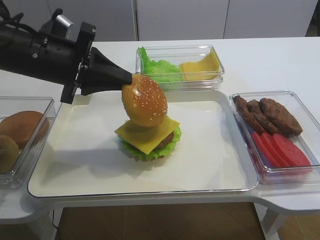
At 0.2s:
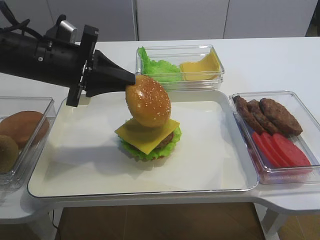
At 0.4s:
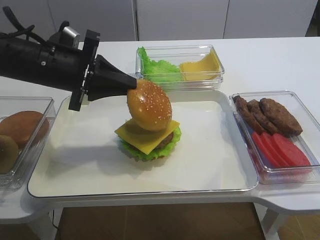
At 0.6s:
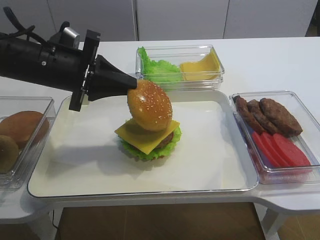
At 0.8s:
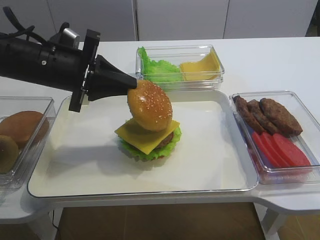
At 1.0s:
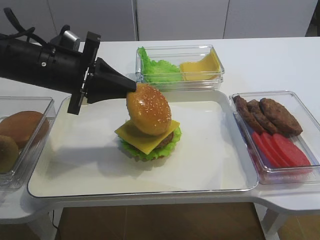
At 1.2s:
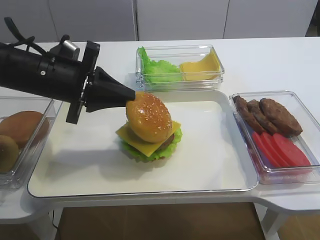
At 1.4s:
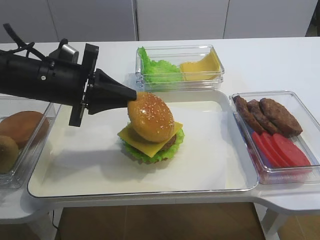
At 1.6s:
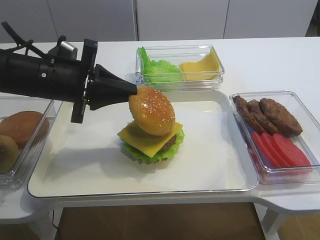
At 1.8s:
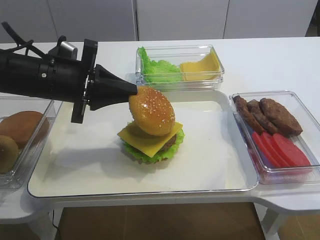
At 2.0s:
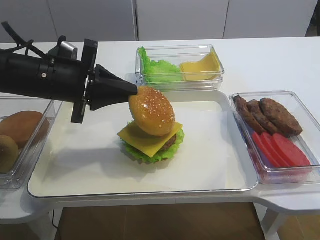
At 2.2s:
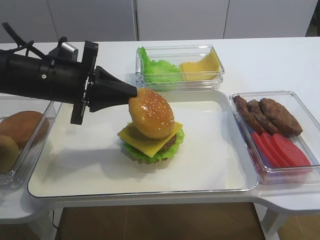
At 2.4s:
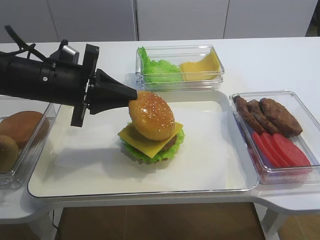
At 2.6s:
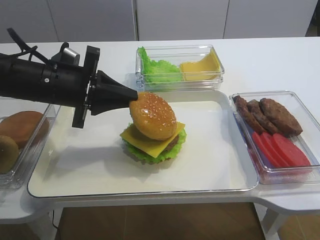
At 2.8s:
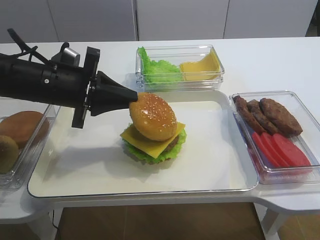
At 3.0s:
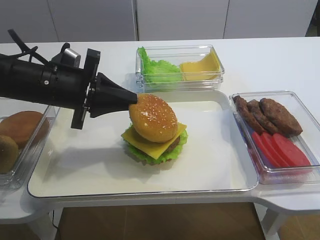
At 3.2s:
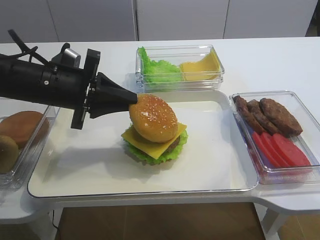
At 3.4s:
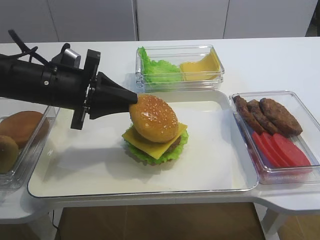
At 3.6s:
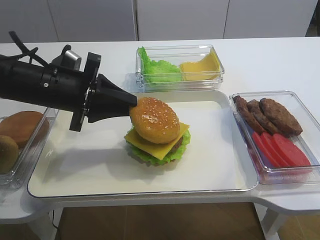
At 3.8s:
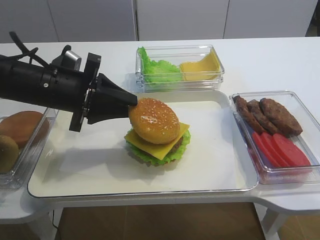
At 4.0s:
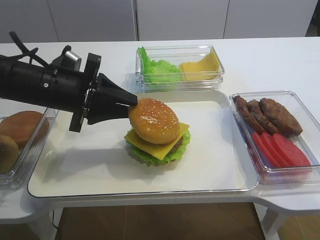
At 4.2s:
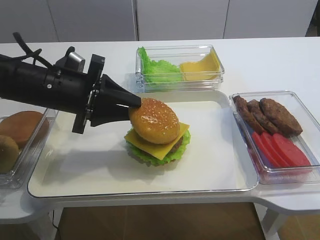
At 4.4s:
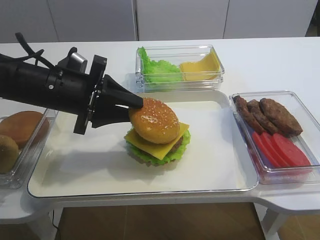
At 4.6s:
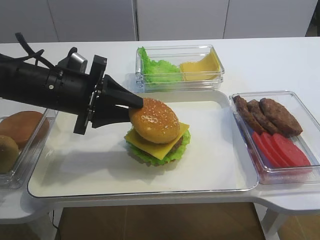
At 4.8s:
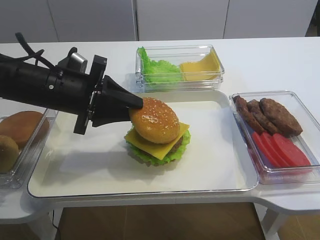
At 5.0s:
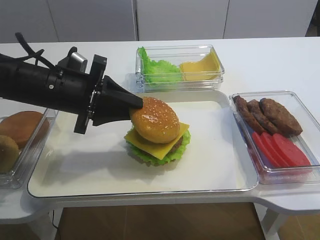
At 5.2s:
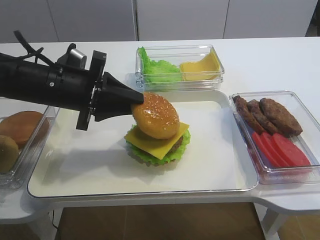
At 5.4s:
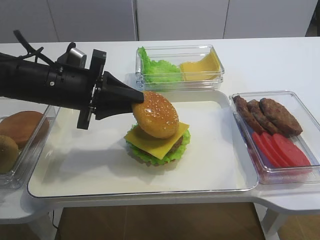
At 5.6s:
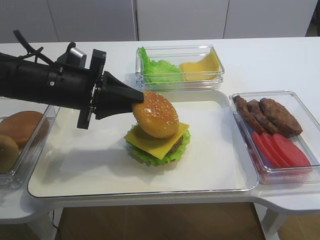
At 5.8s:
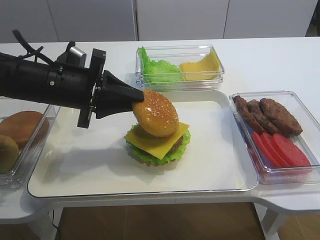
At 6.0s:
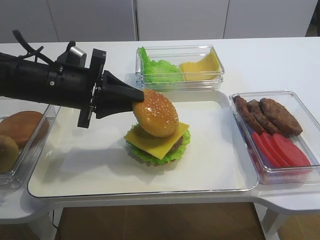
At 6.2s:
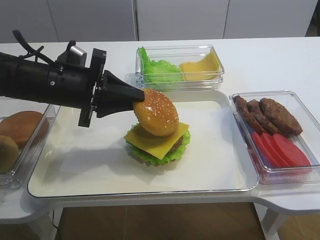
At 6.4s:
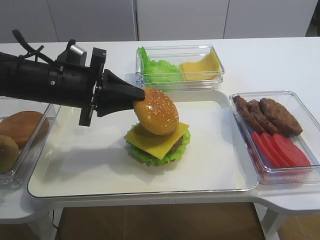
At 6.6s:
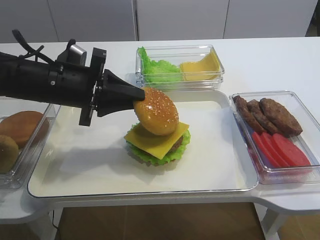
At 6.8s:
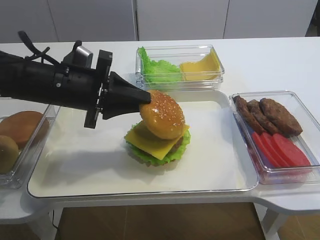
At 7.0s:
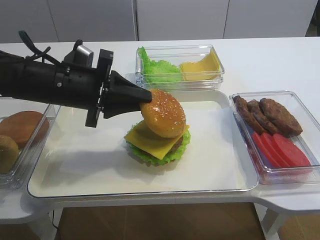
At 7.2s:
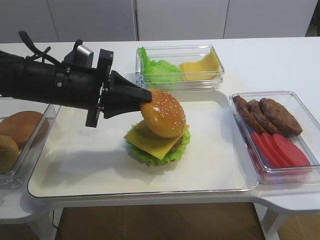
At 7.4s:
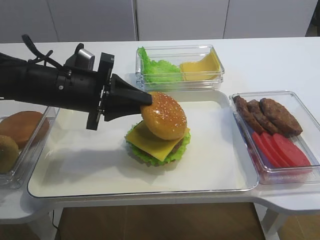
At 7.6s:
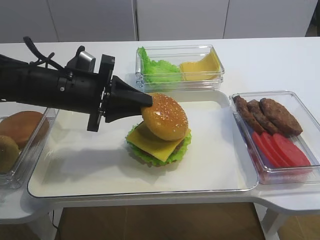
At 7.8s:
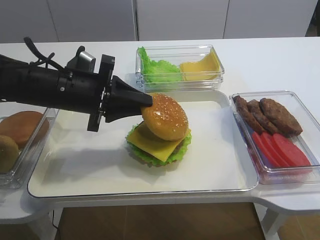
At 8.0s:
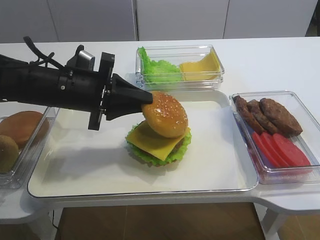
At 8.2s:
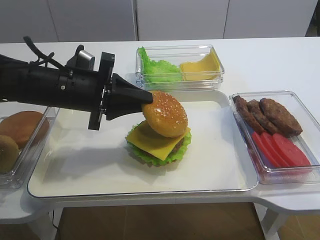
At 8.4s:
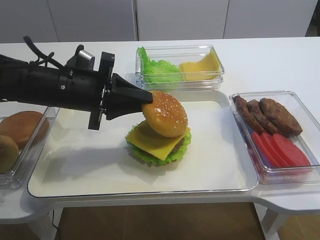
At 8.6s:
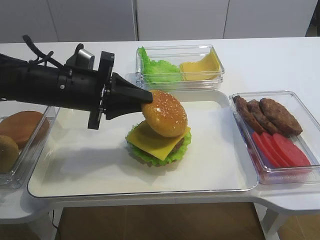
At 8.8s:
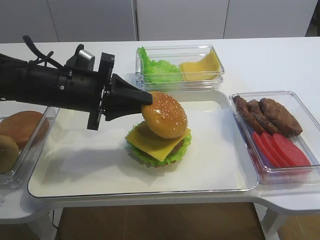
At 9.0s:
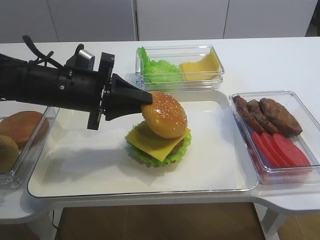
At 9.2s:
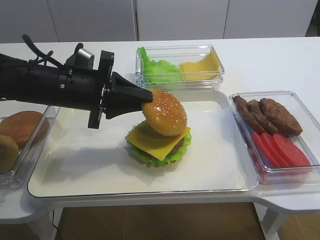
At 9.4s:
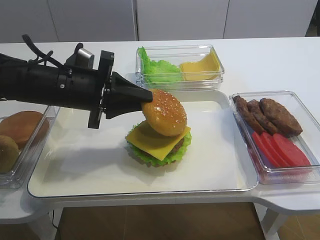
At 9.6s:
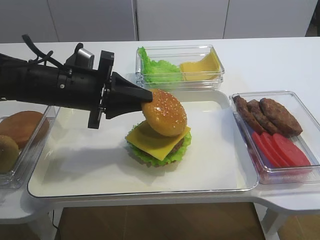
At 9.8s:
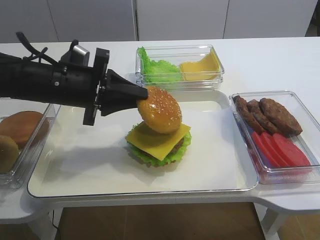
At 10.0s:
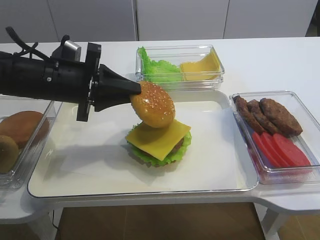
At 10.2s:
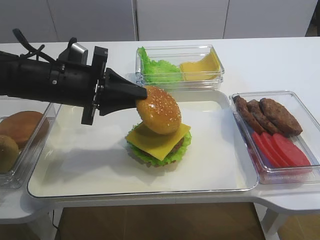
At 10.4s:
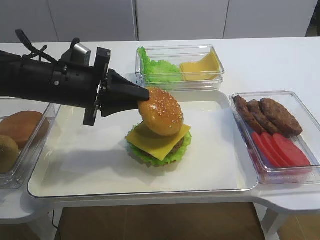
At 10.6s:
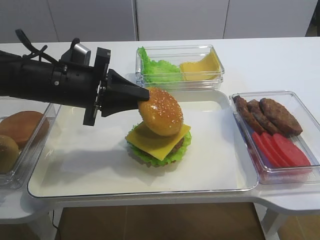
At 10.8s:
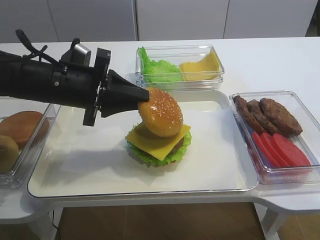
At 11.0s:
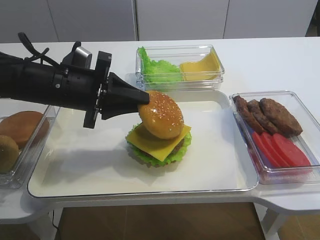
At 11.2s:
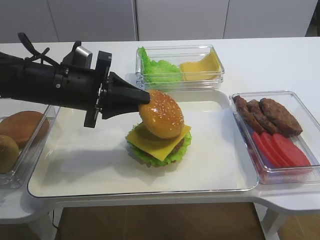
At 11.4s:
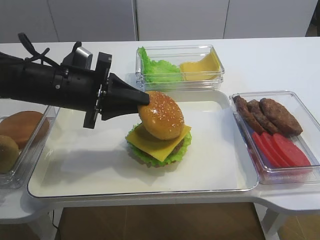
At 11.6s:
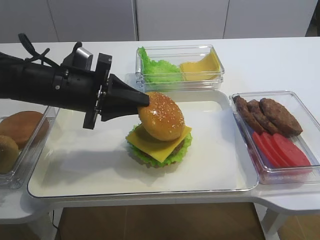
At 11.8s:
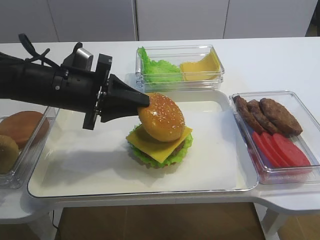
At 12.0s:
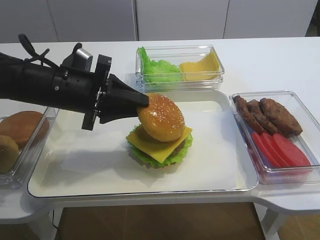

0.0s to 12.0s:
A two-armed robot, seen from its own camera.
0.0s to 1.6s: The grippers stay close to where they were, moving slightly.
1.6s to 3.0s: The two grippers keep their place.
3.0s to 4.4s: The left gripper opens its fingers.
4.4s to 6.0s: Both grippers stay put.
6.0s to 7.6s: The grippers move only a little.
7.6s to 9.0s: Both grippers stay put.
9.0s to 10.4s: There are only small adjustments of the grippers.
10.4s to 12.0s: Both grippers stay about where they are.

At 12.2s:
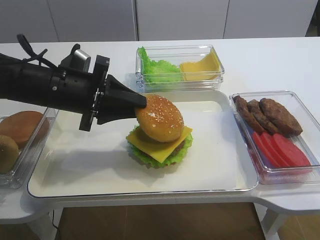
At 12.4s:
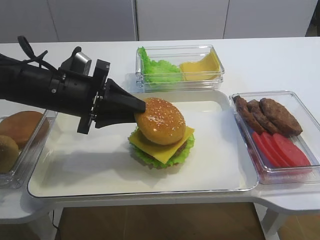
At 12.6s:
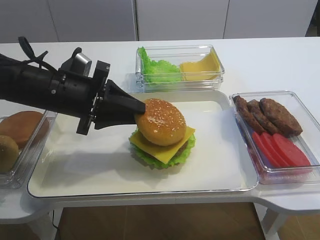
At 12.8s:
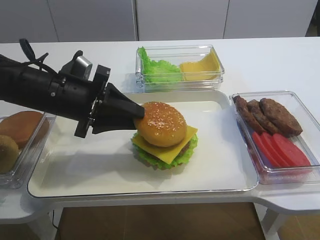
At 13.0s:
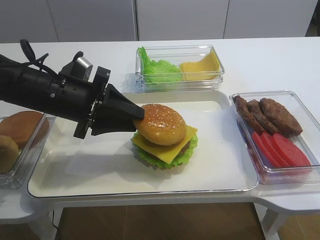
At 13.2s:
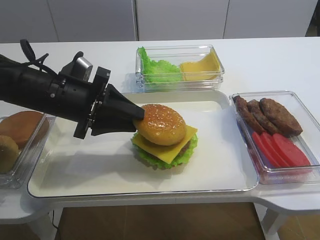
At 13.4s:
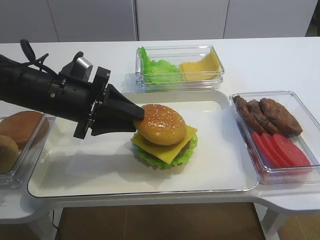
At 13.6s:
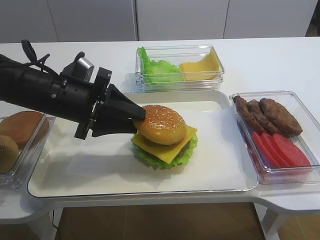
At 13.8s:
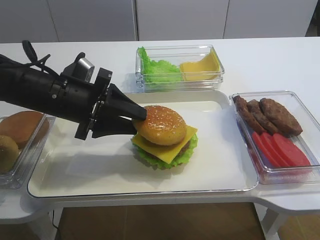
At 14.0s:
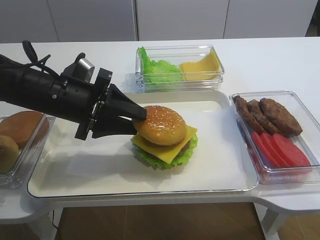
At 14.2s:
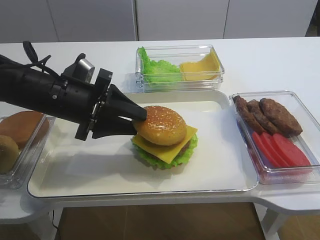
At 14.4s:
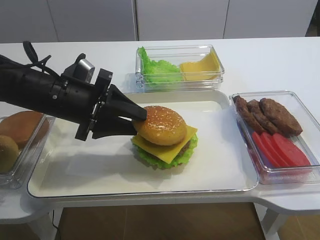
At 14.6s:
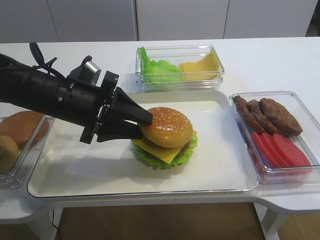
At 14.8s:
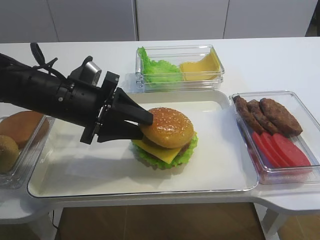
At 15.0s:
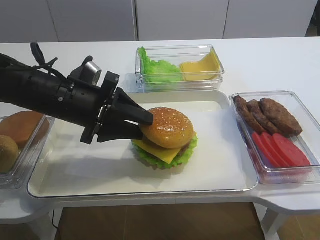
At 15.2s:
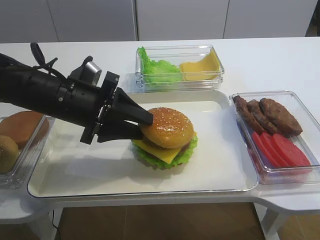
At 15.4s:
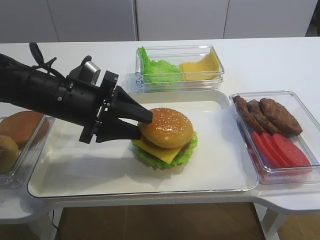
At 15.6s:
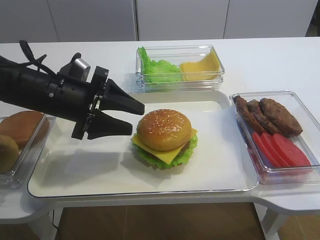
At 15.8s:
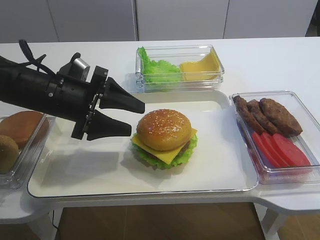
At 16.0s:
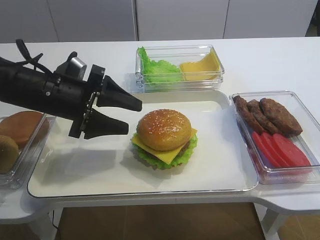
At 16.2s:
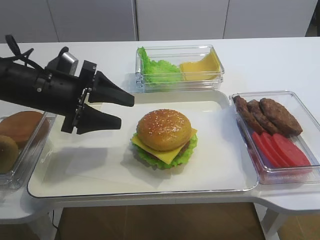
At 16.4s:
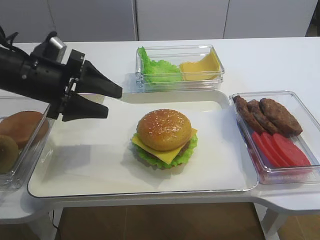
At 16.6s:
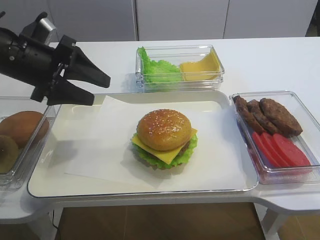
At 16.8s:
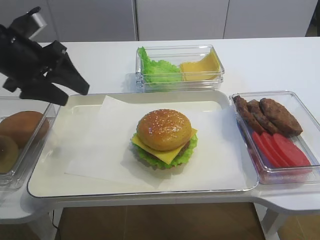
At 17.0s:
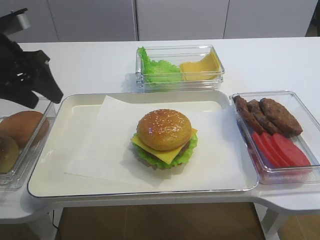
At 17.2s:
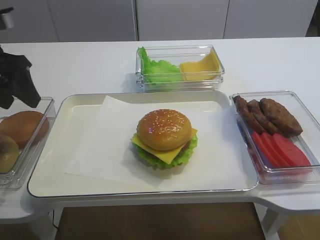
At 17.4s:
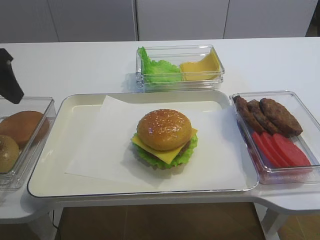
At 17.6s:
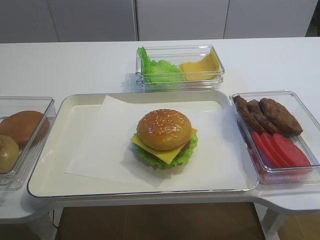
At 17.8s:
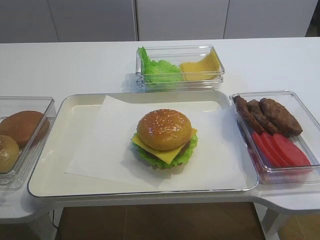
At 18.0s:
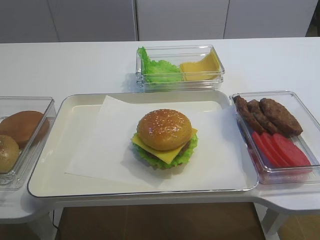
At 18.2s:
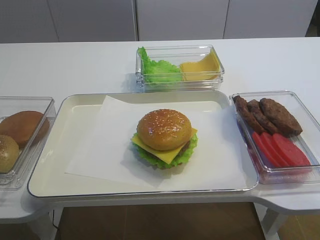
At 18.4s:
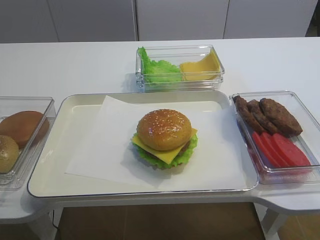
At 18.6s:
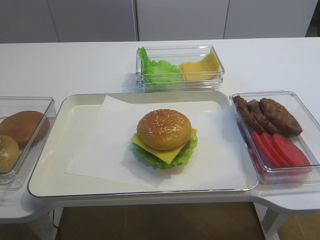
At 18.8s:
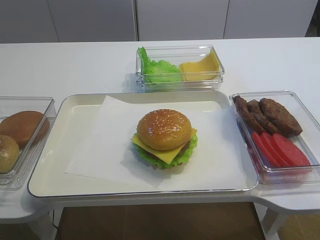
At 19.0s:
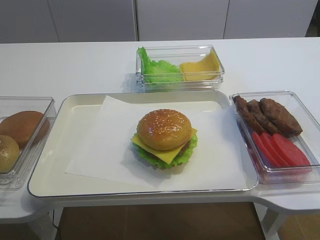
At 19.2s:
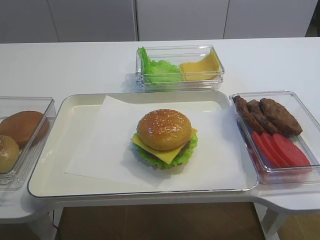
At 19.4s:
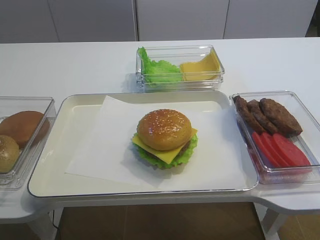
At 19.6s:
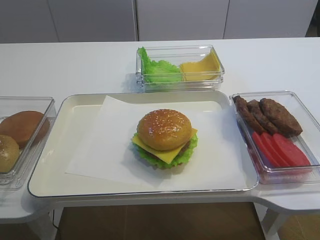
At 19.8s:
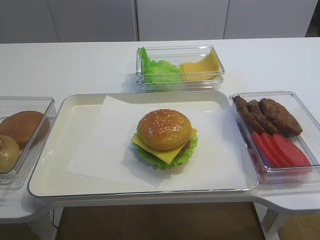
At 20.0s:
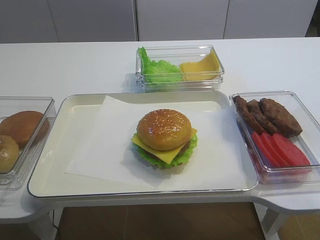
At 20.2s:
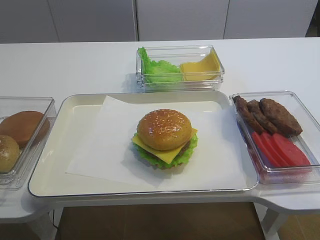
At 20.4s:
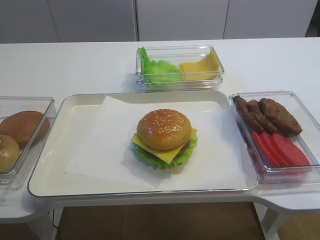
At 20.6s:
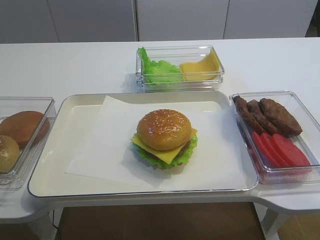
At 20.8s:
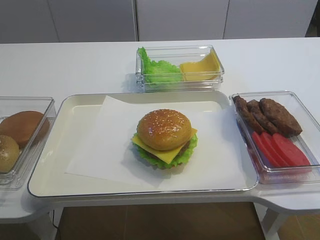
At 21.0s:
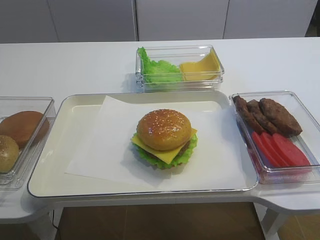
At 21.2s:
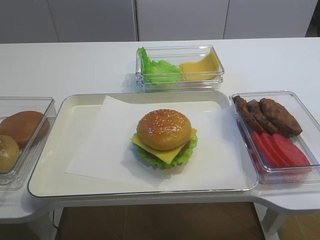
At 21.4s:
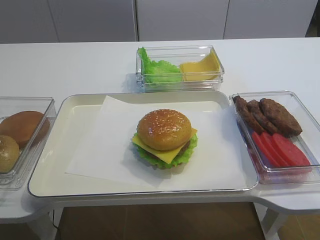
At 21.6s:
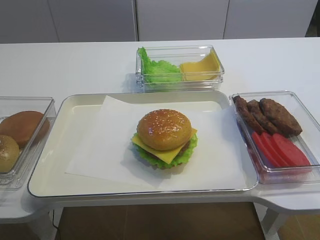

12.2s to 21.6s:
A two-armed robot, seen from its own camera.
Step, 12.2s to 16.0s: Place the hamburger lid on the cheese slice with the left gripper.
12.2s to 13.8s: The grippers move only a little.
13.8s to 15.4s: The two grippers keep their place.
15.4s to 17.0s: The left gripper is displaced to the left and upward by about 15 cm.
17.0s to 18.4s: The left gripper heads backward and upward, covering about 20 cm.

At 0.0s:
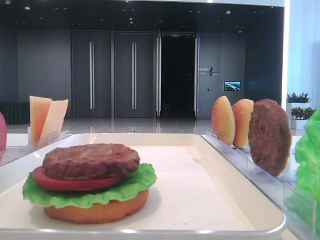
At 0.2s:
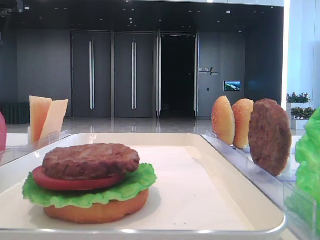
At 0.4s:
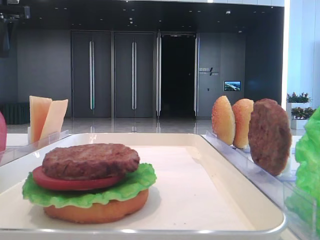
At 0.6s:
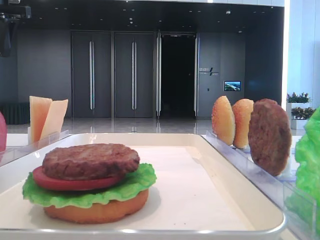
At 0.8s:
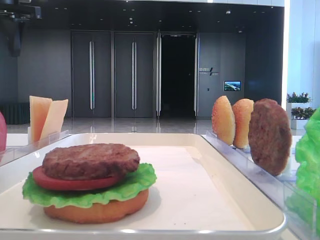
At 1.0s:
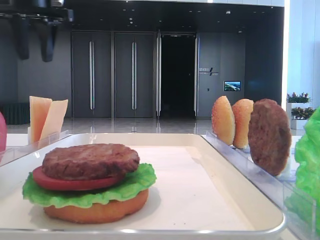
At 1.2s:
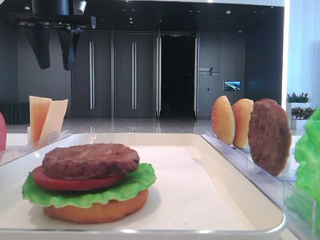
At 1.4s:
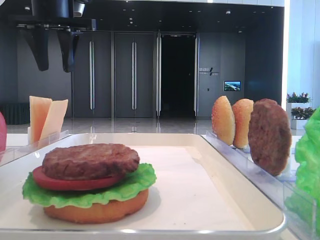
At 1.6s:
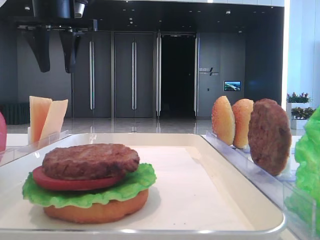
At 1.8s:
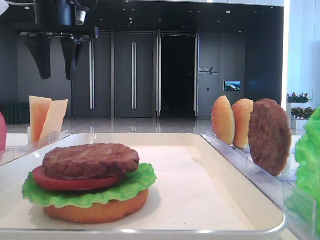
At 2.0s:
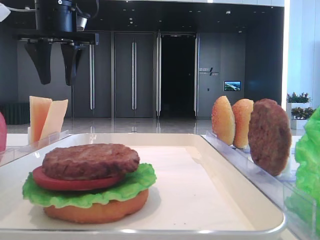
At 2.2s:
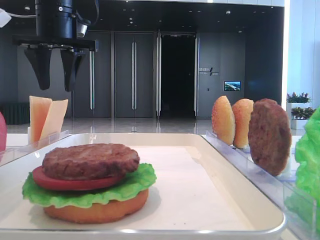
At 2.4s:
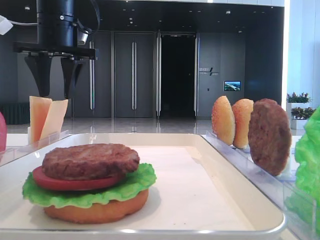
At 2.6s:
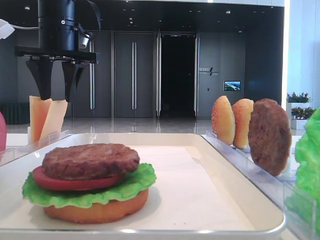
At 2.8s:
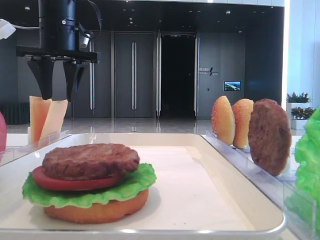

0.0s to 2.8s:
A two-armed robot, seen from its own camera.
0.0s to 1.4s: The left gripper moves to the right, approximately 10 cm.
1.4s to 2.8s: The left gripper is displaced downward by roughly 5 cm.
